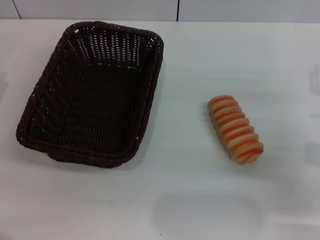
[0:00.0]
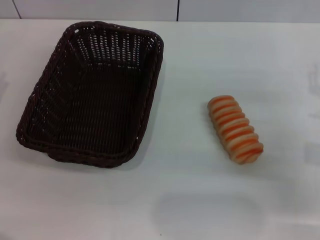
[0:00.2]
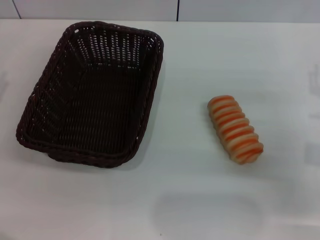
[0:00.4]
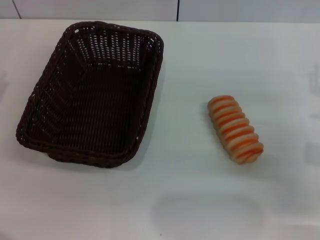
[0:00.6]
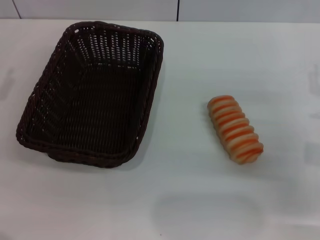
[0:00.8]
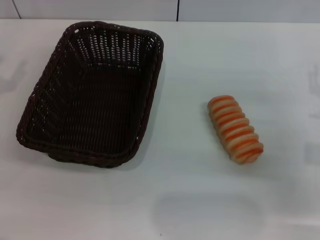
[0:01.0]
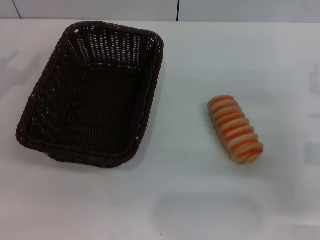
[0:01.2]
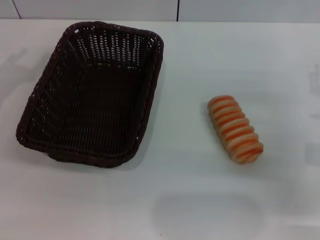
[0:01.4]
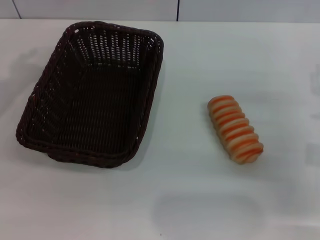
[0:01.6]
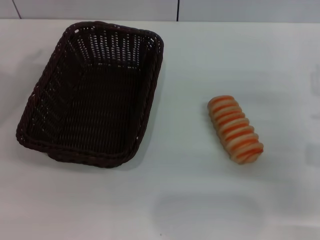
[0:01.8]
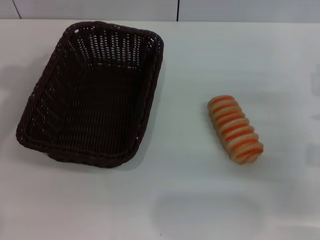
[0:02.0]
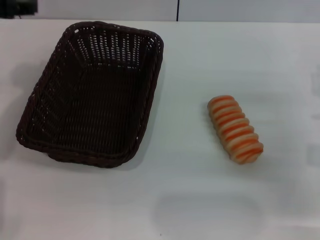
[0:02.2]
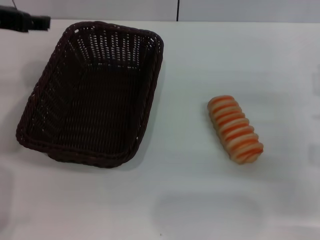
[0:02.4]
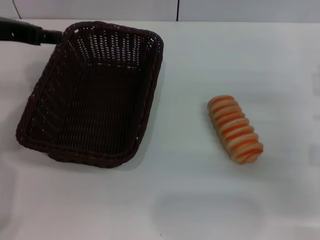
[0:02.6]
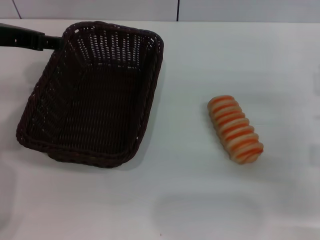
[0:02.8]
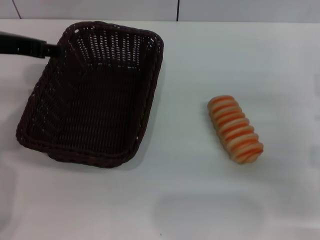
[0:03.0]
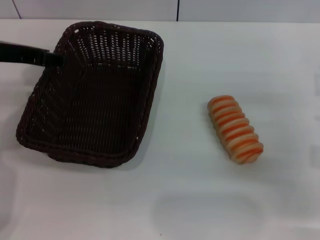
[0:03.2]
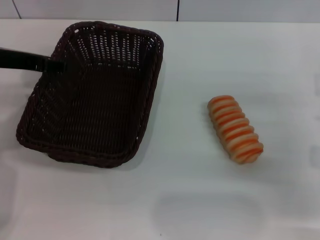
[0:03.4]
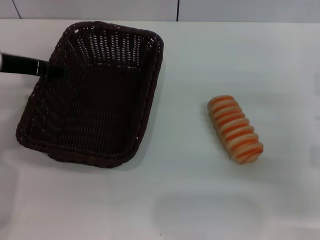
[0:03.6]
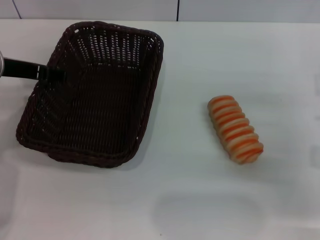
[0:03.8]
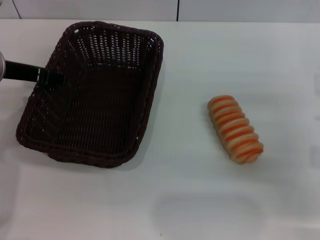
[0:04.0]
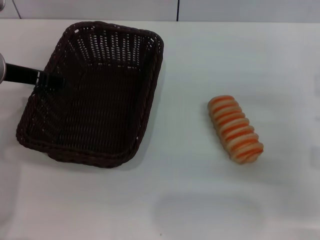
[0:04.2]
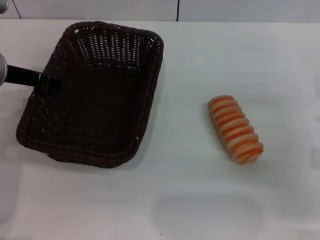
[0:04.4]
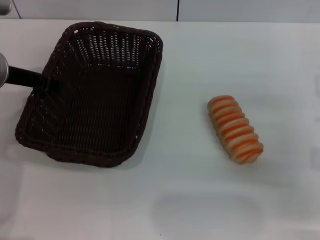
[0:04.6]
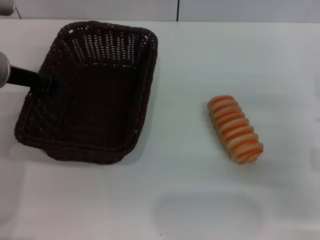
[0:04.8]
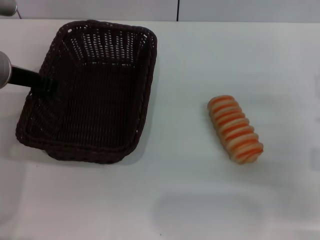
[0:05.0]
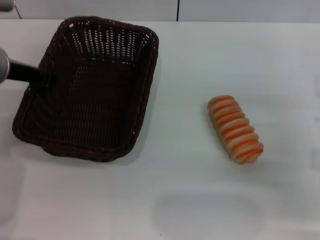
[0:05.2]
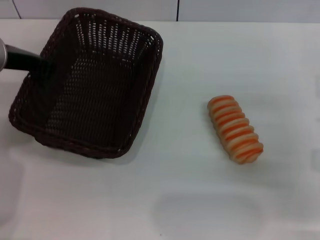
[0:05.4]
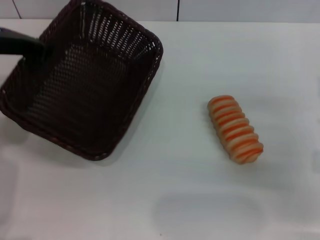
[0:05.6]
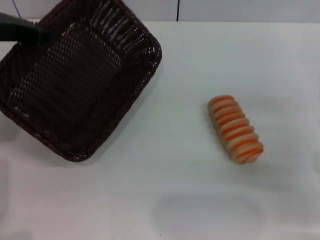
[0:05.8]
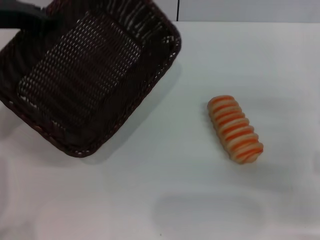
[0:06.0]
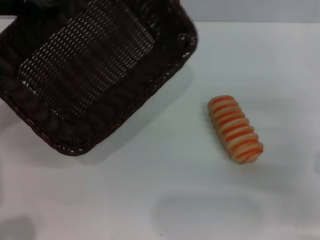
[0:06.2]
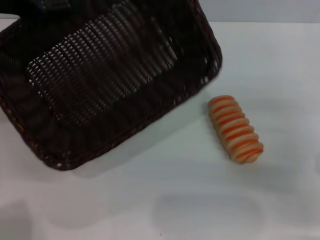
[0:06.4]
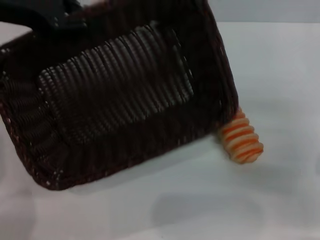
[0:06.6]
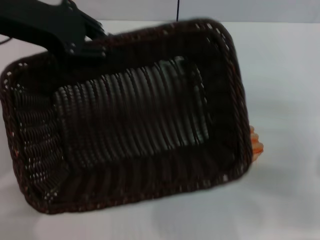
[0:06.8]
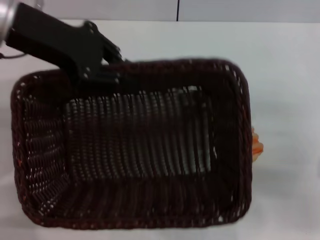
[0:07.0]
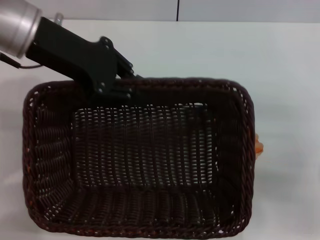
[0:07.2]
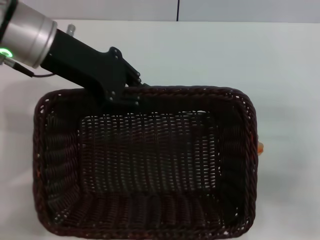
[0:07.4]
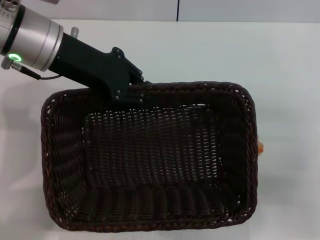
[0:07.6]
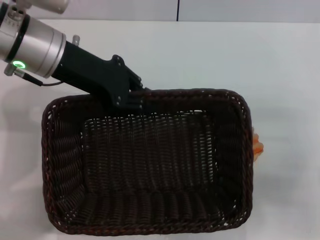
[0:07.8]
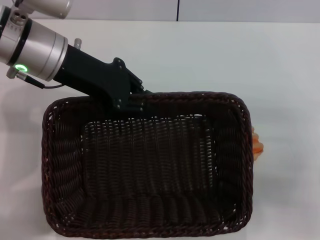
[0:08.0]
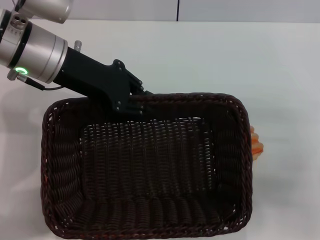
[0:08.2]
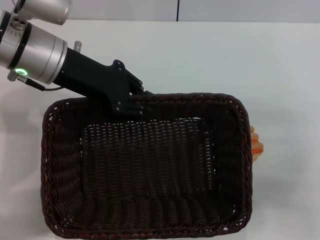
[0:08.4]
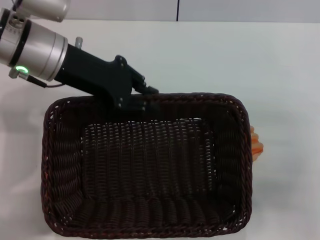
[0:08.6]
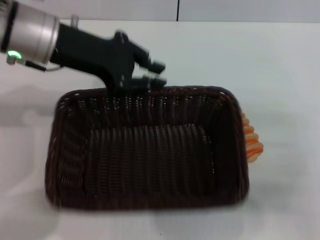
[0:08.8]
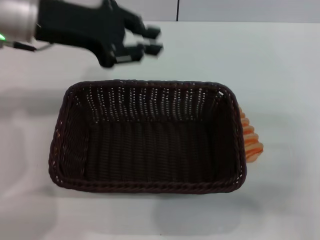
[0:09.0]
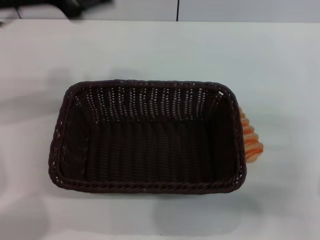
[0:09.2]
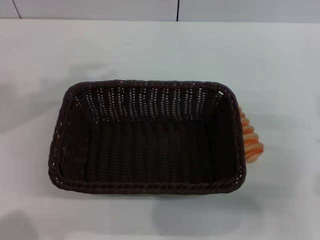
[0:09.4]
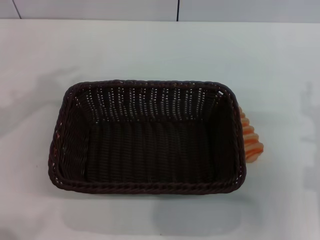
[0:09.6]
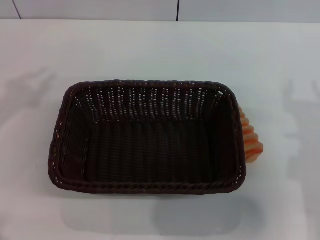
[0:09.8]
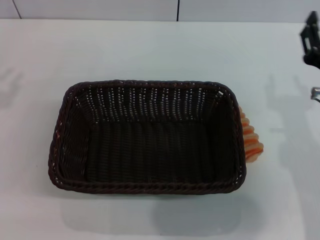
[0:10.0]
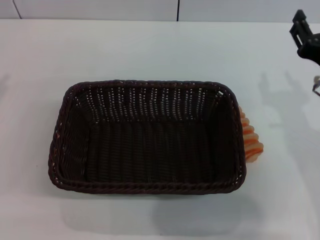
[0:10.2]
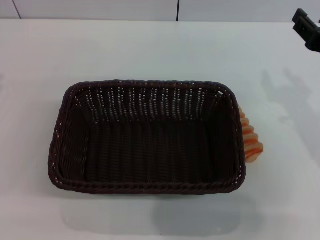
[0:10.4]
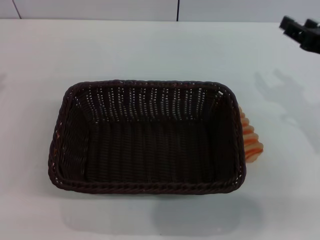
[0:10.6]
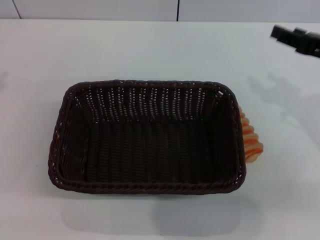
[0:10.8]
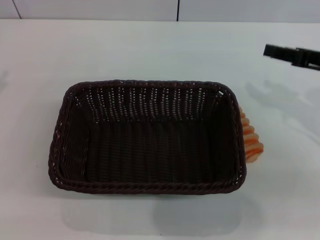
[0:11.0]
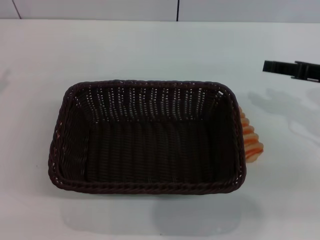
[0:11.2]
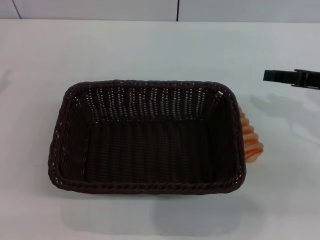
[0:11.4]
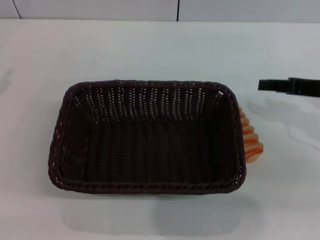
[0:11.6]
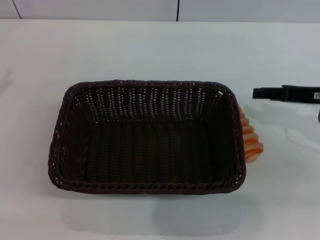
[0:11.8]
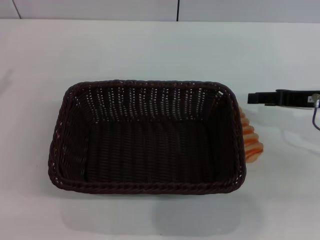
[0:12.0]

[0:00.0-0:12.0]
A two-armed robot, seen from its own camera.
Step, 0:00.0 to 0:05.8: Pick up the dark basket with the left gripper.
Step, 0:06.0 to 0:09.0: Place the dark basket in the center of view with the left gripper.
0:01.6 to 0:03.0: The left gripper moves to the right, some 10 cm.
0:03.0 to 0:04.4: The left gripper goes about 5 cm downward.
0:04.4 to 0:06.0: The left gripper is displaced upward by roughly 5 cm, and closes up.
0:06.0 to 0:07.6: The left gripper moves to the right, about 10 cm.
0:09.0 to 0:10.4: The left gripper goes some 25 cm to the left and backward; the right gripper is displaced upward by about 10 cm.
0:10.4 to 0:12.0: The right gripper heads forward, covering approximately 5 cm.

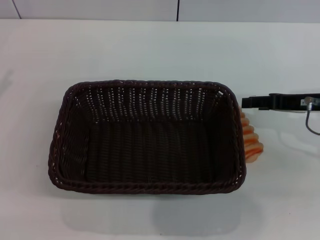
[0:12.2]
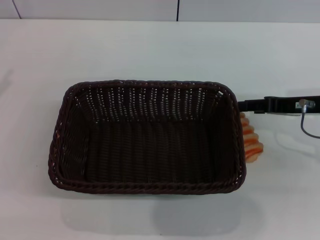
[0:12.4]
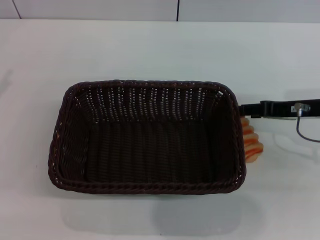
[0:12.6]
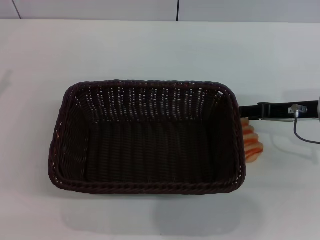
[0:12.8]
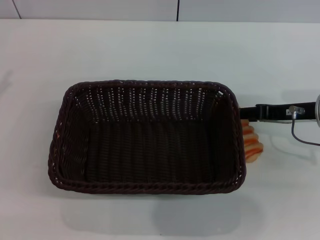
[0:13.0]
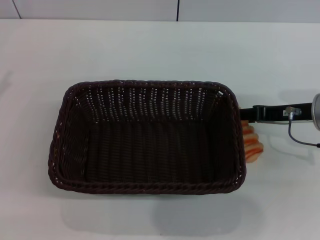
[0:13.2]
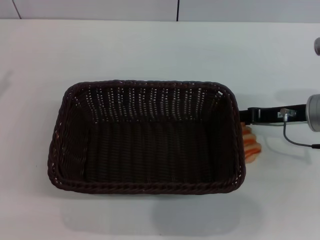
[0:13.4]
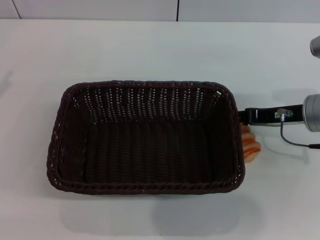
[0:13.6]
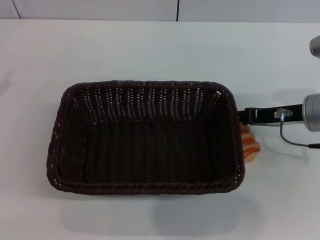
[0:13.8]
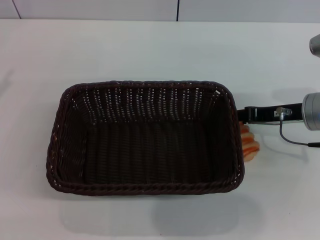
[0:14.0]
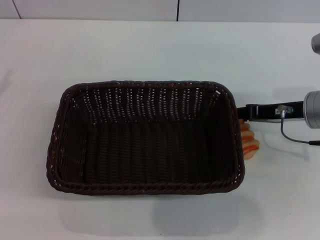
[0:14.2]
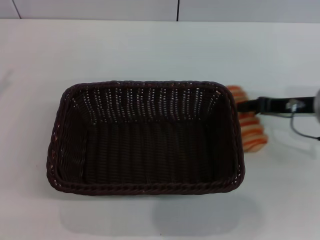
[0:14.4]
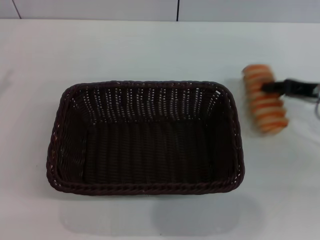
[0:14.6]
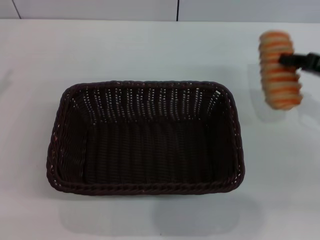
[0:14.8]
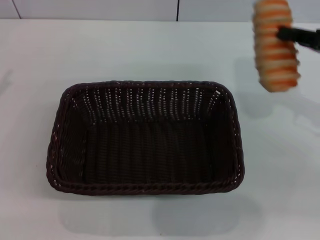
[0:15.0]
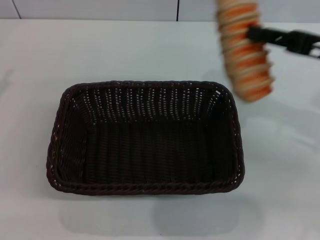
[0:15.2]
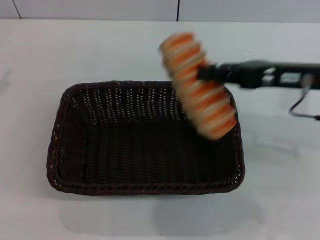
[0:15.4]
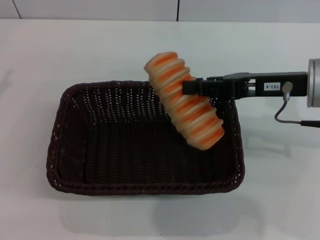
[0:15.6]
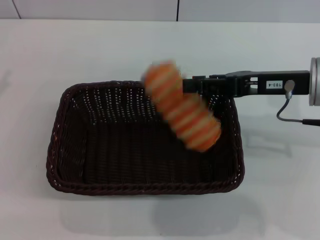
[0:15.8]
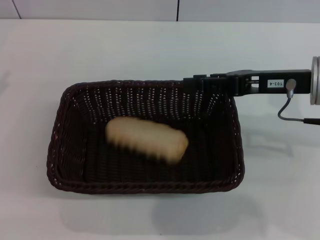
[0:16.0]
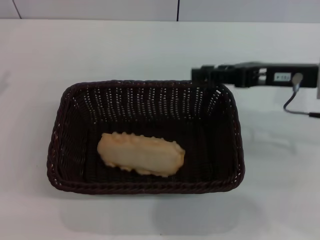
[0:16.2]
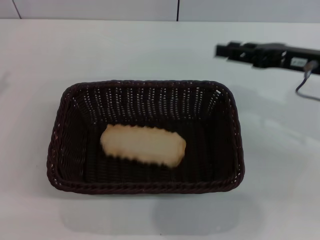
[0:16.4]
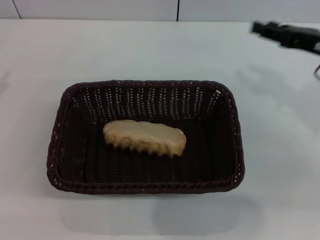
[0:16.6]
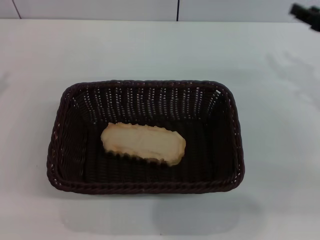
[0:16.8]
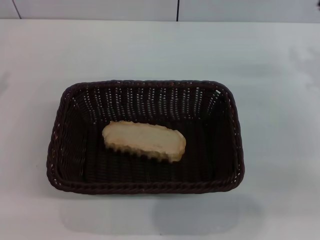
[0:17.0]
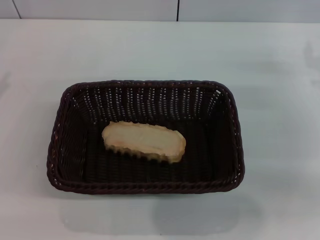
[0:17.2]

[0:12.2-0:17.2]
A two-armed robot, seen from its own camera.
Step, 0:12.2 to 0:14.8: Pick up the long bread with the right gripper.
Step, 0:15.0 to 0:16.0: Place the long bread into the dark basket with the right gripper.
0:12.2 to 0:13.8: The grippers stay close to where they were, moving slightly.
0:13.8 to 0:15.6: The right gripper shifts approximately 10 cm upward, and closes its fingers.
0:15.6 to 0:17.2: The right gripper moves to the right, roughly 10 cm, and opens its fingers.
